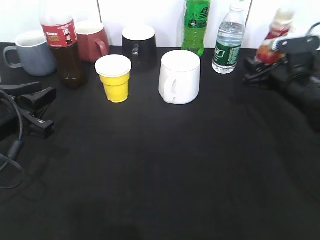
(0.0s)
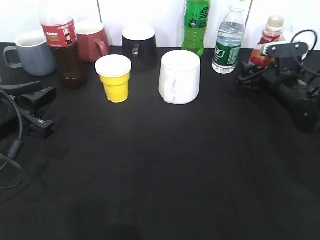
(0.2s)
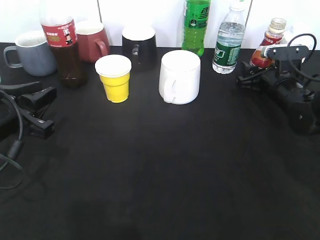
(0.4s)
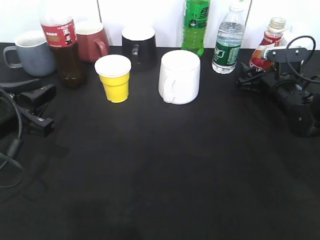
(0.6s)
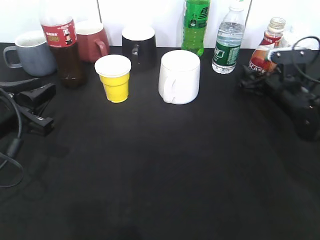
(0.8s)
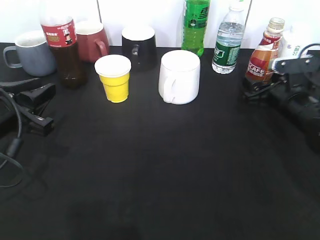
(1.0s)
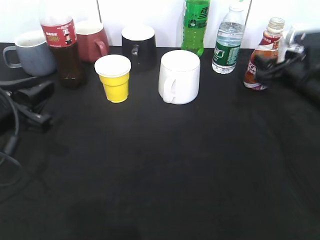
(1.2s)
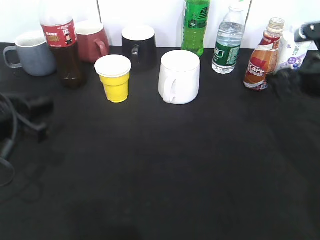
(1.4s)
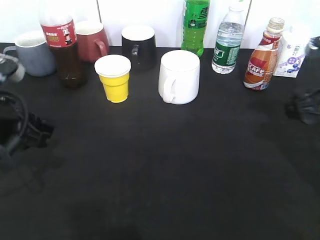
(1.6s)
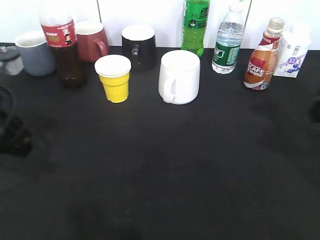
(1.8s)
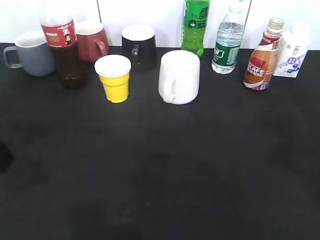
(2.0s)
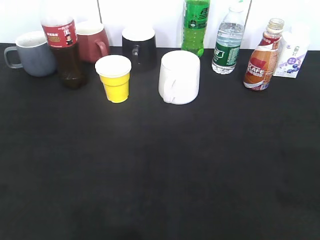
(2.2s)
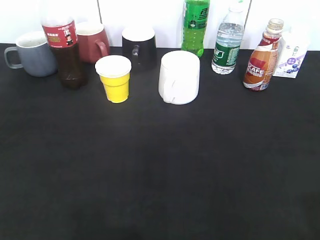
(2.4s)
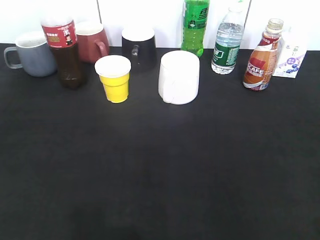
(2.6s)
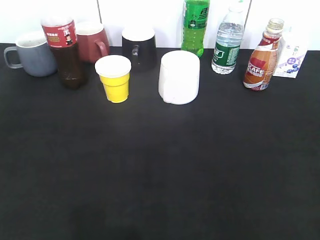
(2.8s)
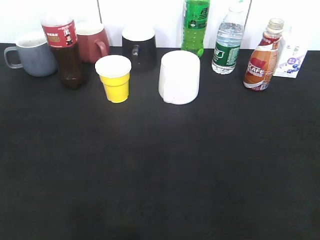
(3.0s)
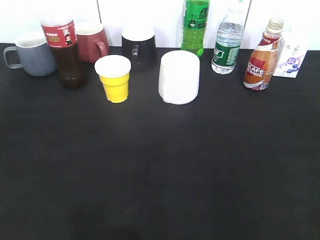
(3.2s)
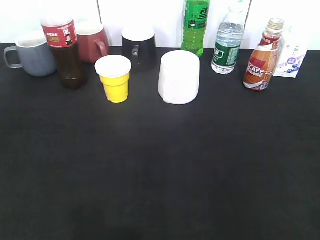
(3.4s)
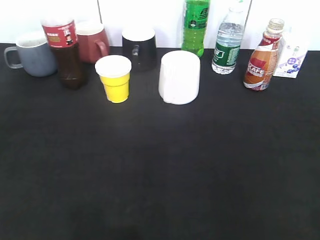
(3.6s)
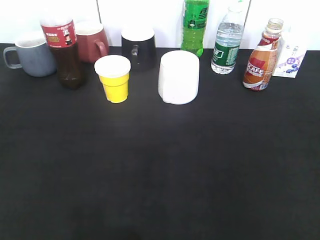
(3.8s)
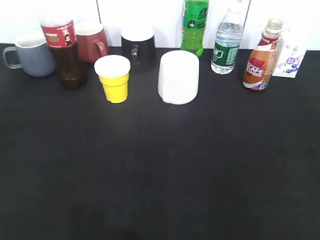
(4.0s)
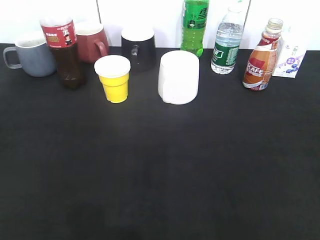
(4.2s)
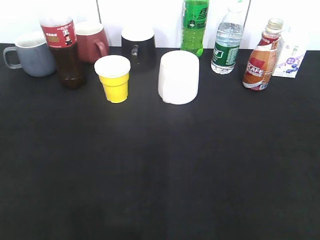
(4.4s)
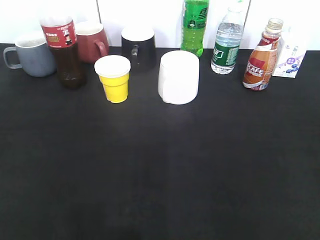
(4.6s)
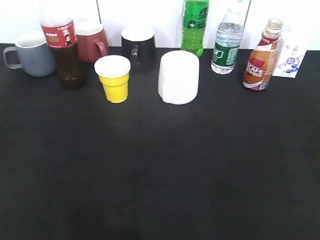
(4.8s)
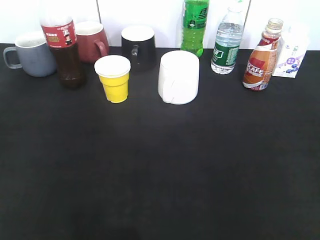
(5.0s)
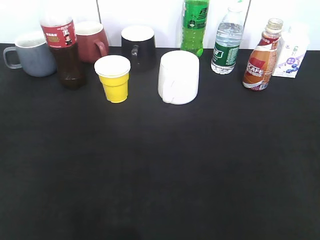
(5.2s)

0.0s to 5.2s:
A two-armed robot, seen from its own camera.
Step, 0.0s to 1.4s: Place the coffee bottle on the table with right gripper.
0.0s to 1.8s: The right gripper shifts approximately 20 cm upward and backward, and opens, then closes once more. Meanwhile the left gripper goes some 5 cm upward.
1.8s to 3.4s: The left gripper goes about 20 cm backward and to the left, and opens; the right gripper moves backward, some 25 cm.
